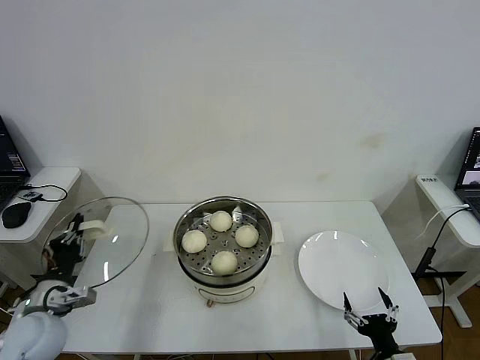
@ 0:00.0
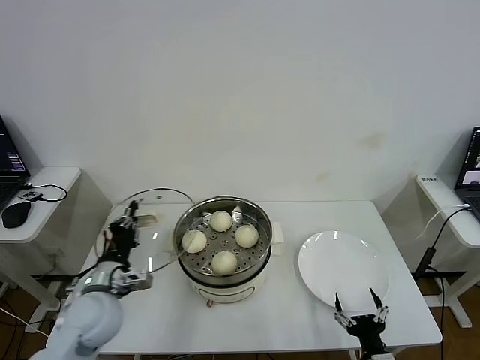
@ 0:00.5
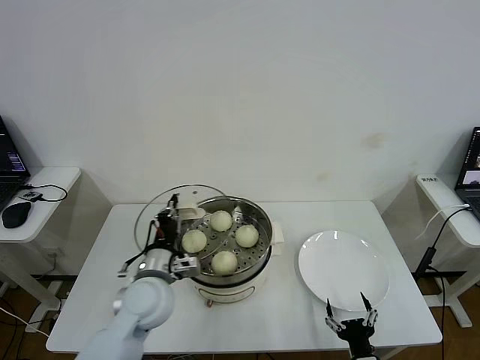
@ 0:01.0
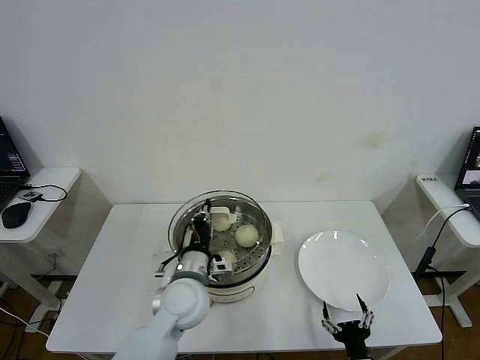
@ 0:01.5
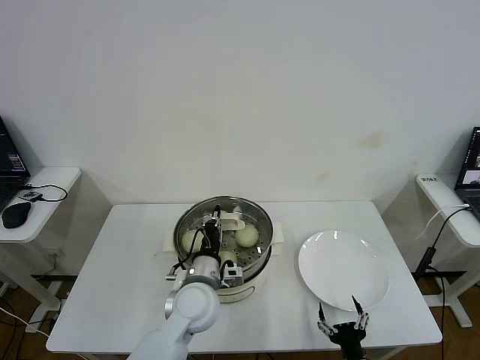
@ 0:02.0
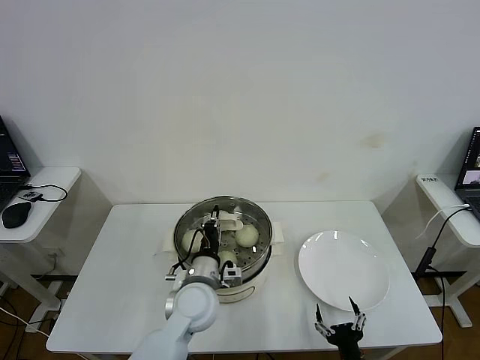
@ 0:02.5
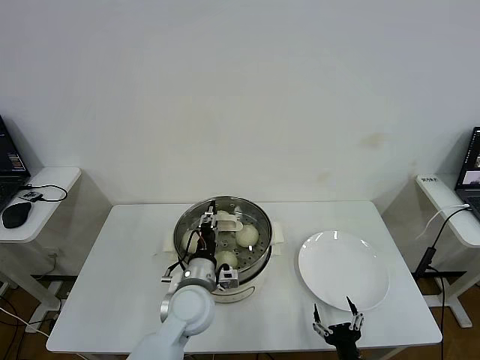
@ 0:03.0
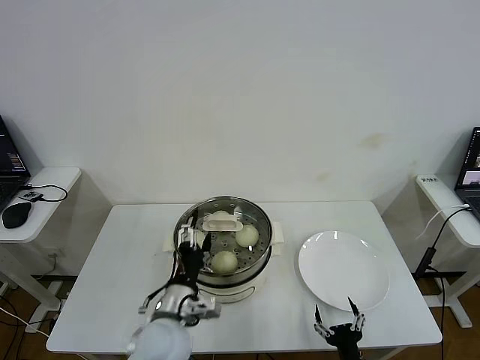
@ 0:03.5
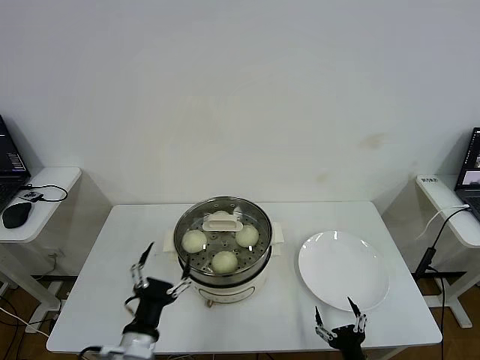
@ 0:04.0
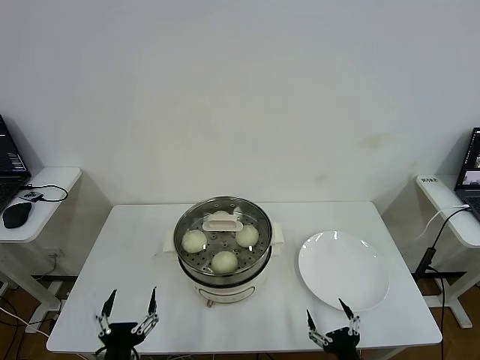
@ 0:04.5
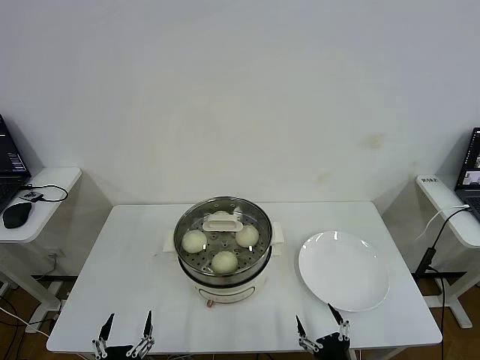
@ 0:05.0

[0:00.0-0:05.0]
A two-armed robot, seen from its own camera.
Step, 0:00.0 to 0:03.0: Place the pot lid on the steamer with left gripper.
0:00.0 to 0:02.5: The right gripper shifts about 5 cm to the left. The left gripper shifts approximately 30 cm to the right.
0:02.5 to 0:05.0: The left gripper heads backward and to the left, covering some 30 cm, and opens.
